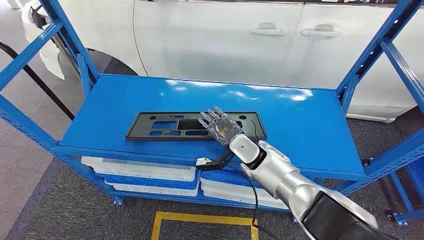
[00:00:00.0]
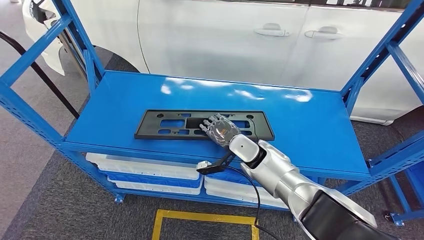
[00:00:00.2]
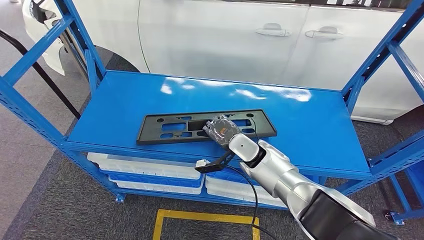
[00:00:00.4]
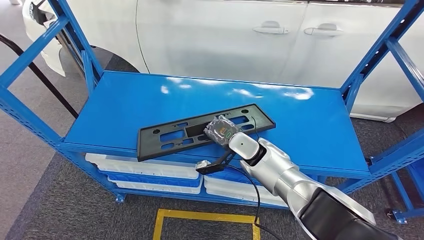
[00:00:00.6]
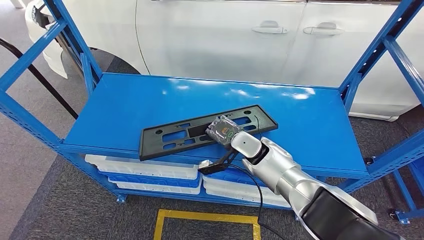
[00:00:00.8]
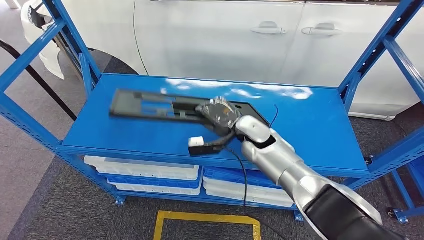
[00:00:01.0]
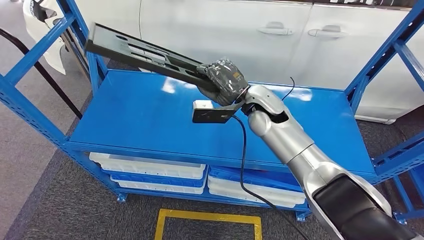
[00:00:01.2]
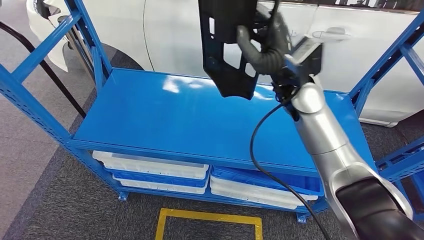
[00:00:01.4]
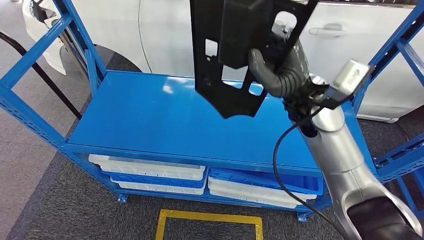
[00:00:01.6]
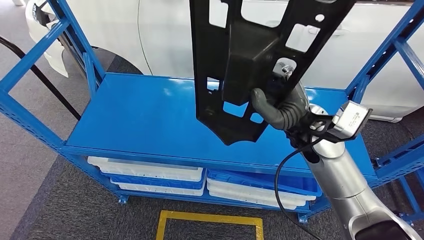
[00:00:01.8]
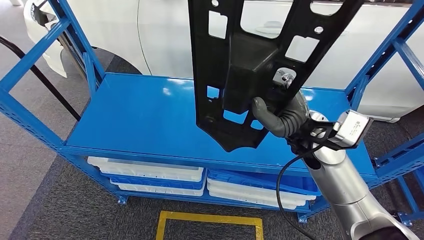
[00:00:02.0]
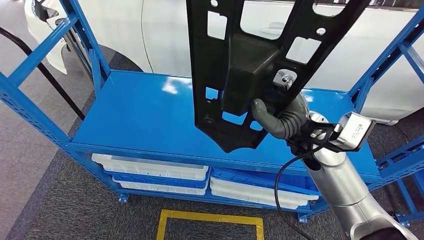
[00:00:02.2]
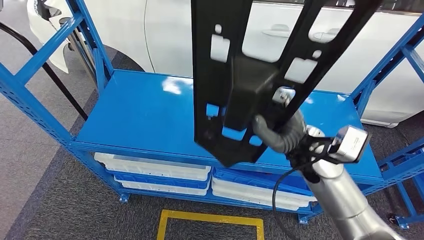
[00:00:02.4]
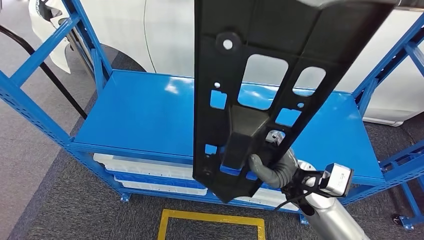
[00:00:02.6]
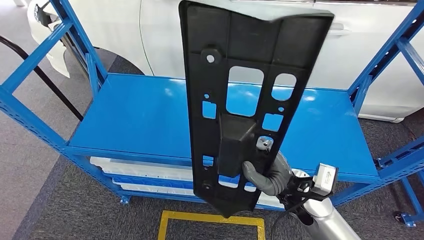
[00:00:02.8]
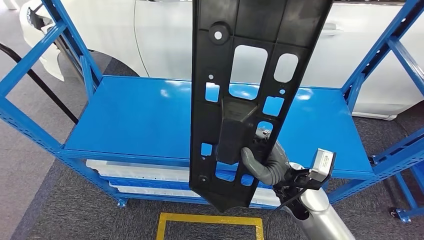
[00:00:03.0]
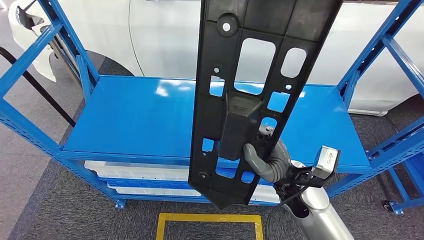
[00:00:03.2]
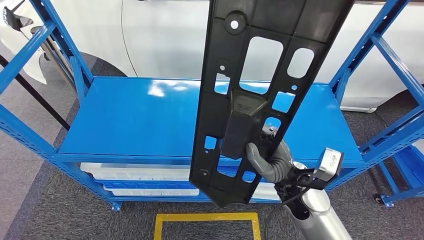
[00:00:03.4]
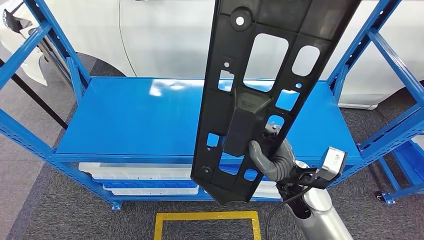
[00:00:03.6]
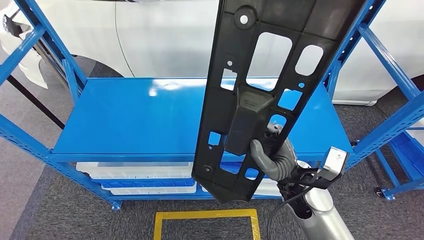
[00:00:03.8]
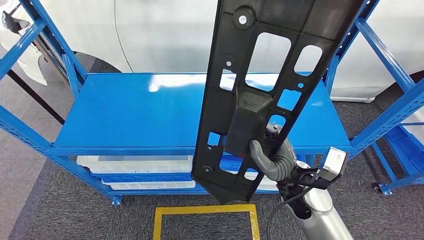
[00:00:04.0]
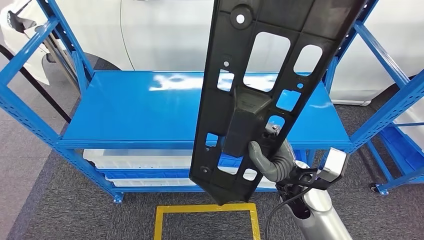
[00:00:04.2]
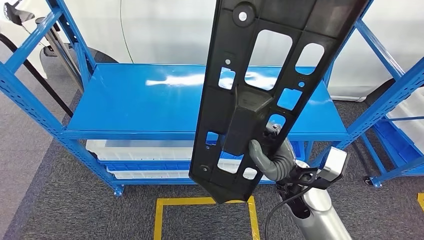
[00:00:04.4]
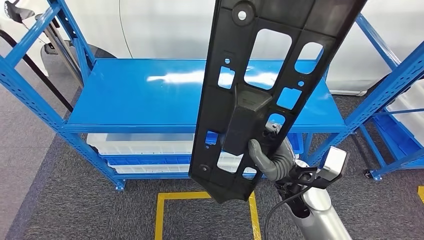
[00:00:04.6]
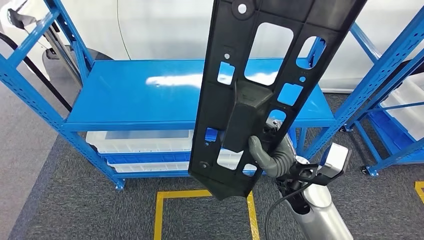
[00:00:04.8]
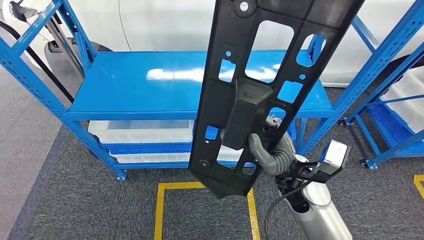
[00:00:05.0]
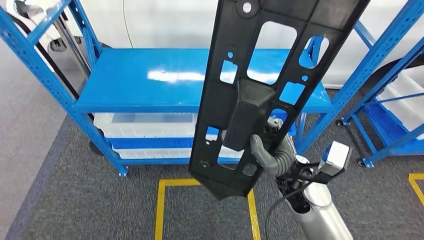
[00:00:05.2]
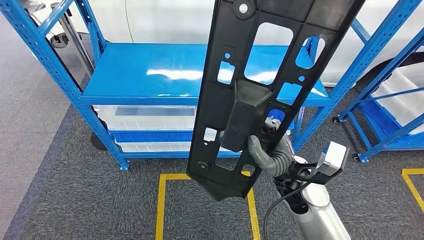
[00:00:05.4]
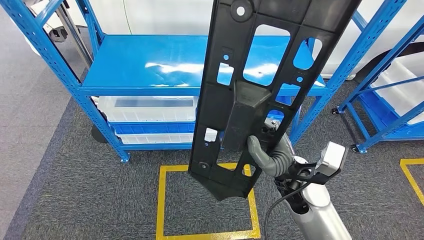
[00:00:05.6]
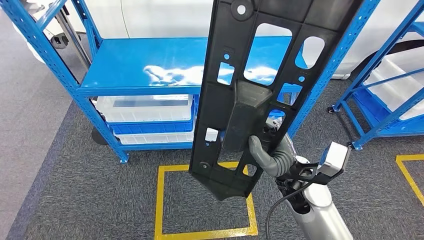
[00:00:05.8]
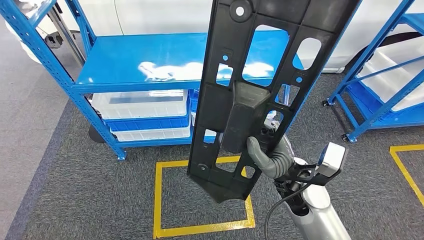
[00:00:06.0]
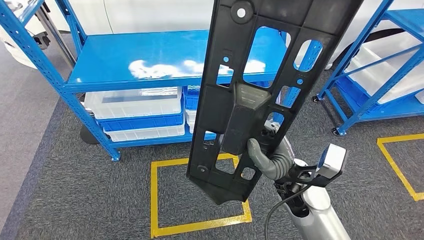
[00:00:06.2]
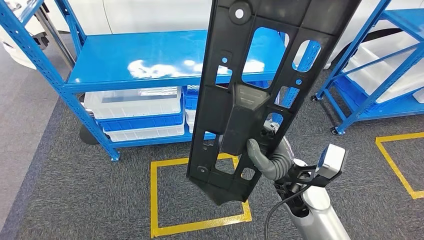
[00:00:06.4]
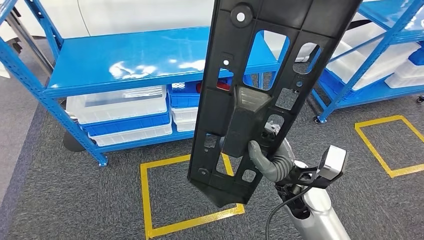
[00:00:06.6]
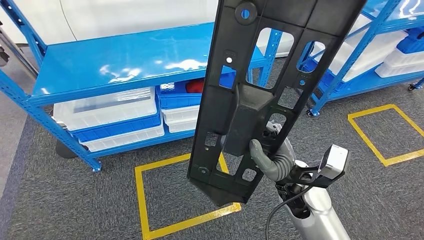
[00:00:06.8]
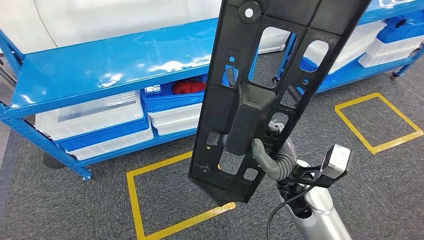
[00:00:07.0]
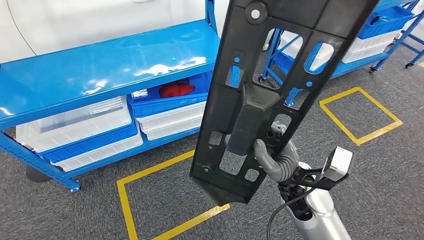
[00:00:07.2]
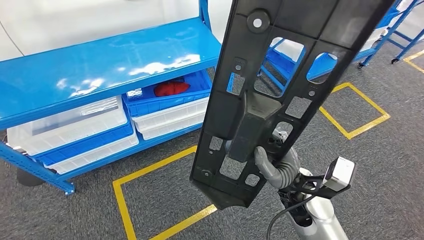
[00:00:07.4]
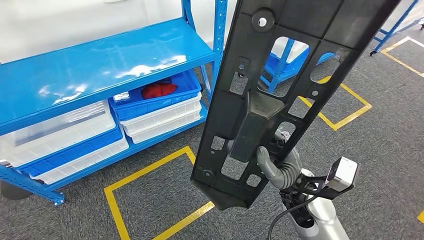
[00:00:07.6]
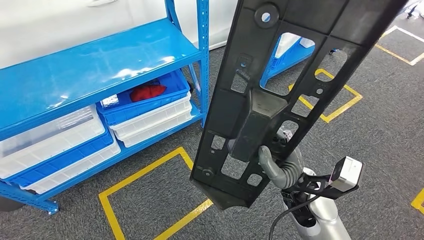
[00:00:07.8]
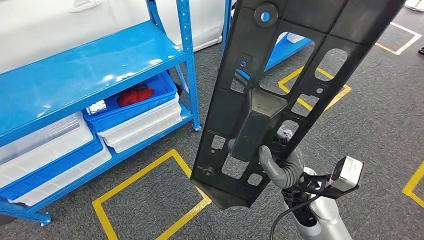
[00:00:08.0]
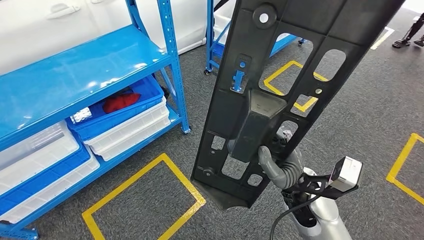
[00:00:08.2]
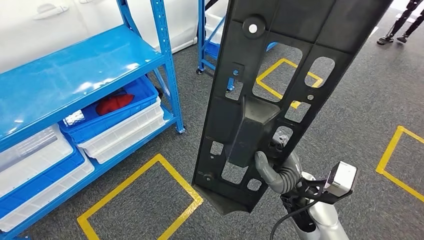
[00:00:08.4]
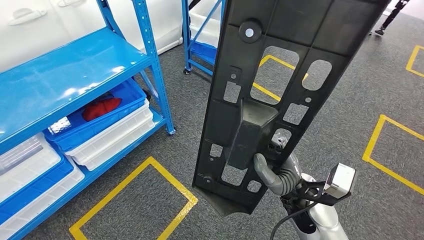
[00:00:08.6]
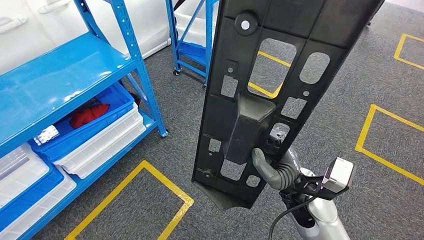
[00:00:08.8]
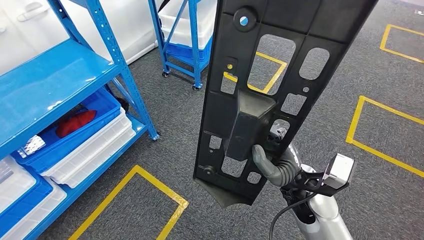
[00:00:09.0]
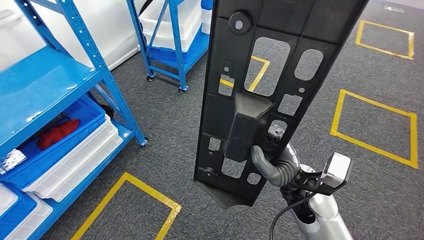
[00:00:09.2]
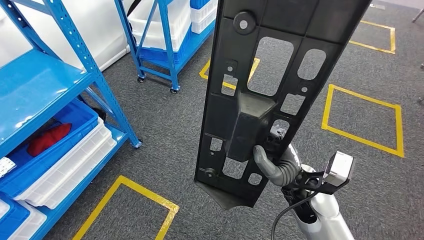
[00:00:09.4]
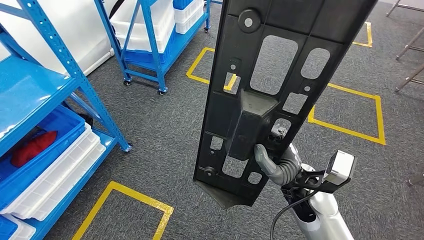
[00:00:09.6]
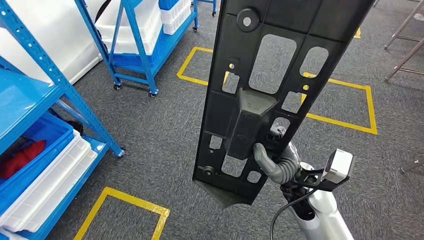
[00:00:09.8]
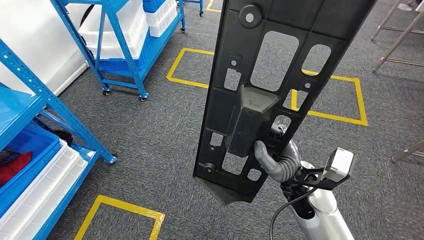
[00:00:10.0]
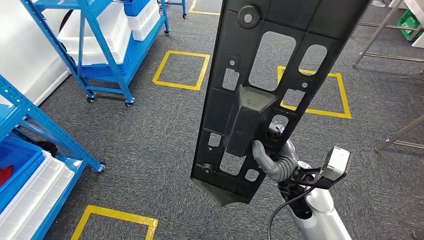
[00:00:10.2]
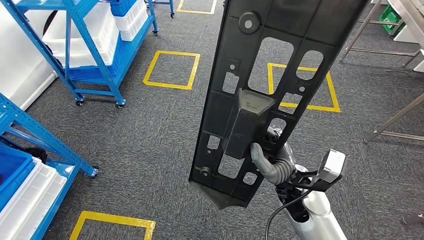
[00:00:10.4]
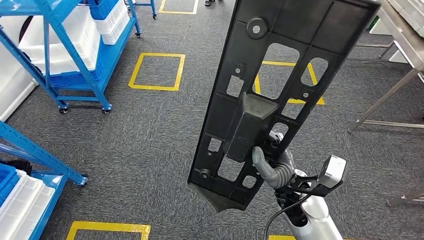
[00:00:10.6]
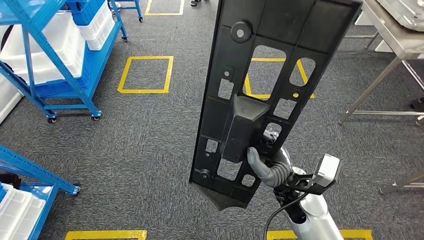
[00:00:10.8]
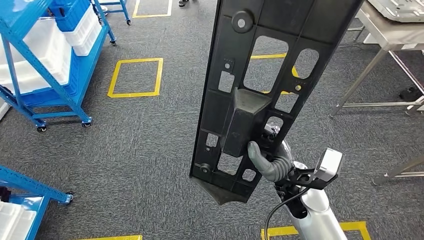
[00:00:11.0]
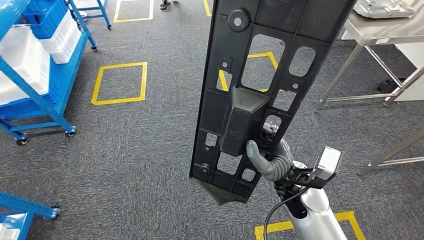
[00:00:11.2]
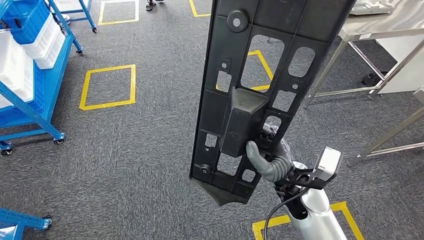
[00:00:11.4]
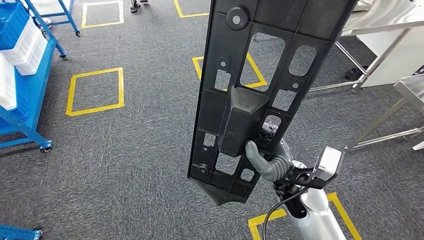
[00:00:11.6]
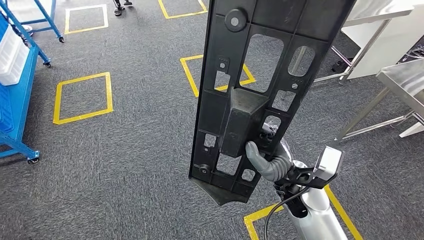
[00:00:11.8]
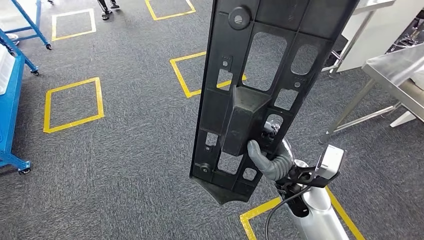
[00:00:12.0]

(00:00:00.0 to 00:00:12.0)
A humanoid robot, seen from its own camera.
Step, 00:00:00.0 - 00:00:02.6: Pick up the large material from the shelf.

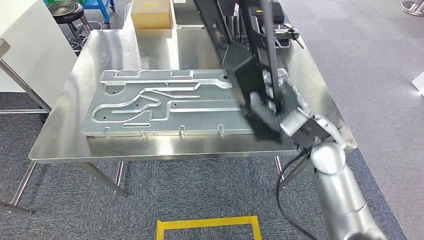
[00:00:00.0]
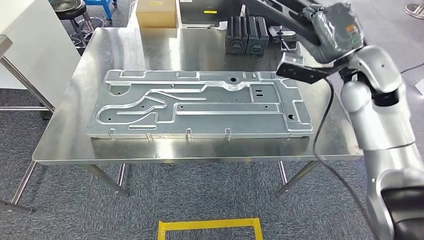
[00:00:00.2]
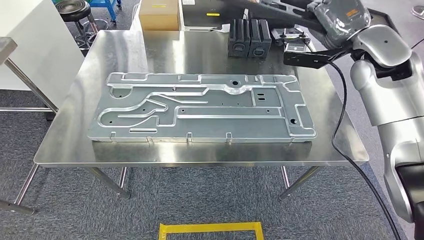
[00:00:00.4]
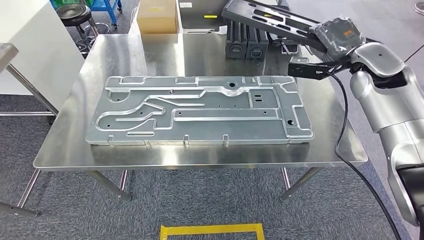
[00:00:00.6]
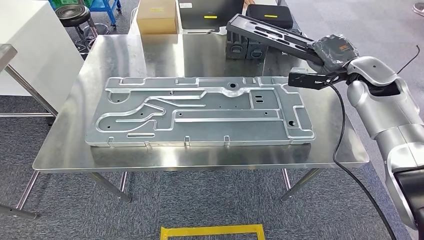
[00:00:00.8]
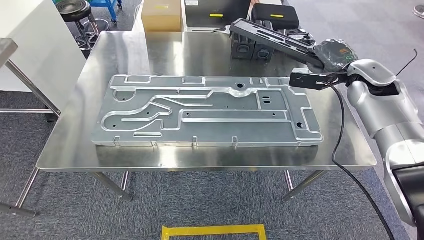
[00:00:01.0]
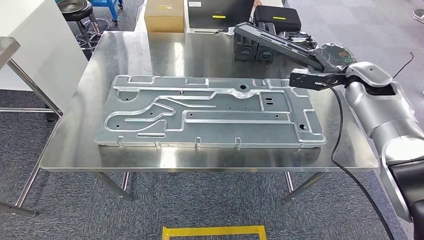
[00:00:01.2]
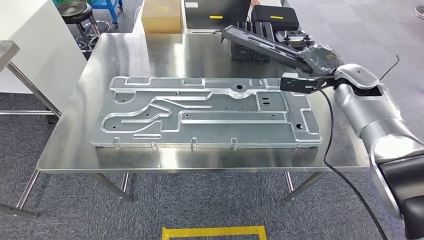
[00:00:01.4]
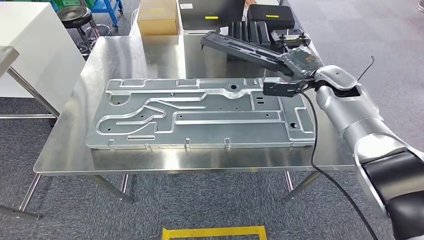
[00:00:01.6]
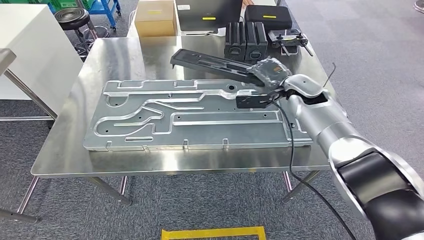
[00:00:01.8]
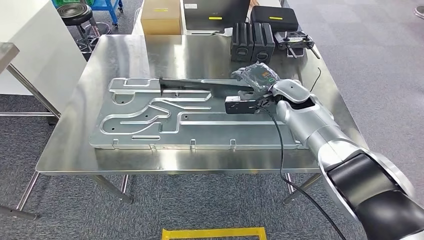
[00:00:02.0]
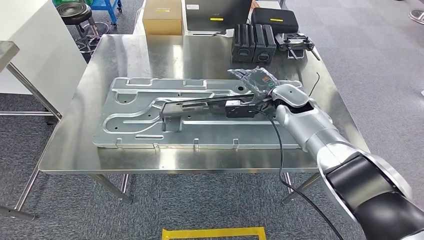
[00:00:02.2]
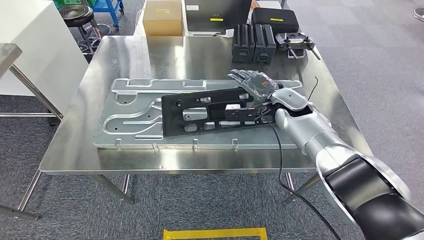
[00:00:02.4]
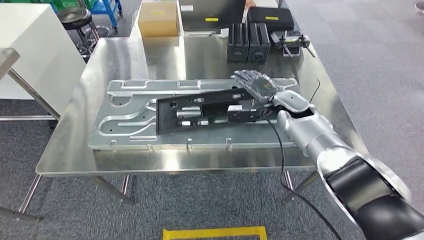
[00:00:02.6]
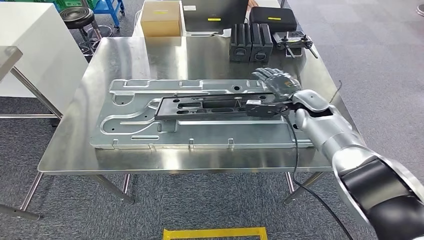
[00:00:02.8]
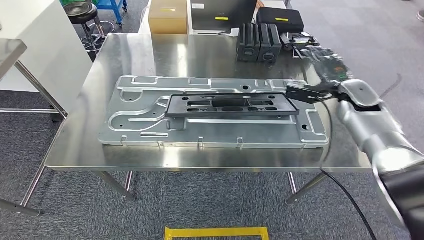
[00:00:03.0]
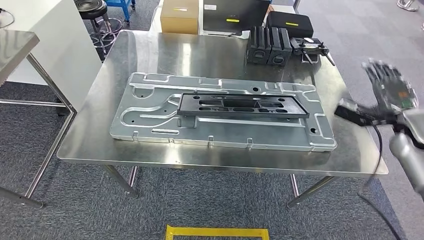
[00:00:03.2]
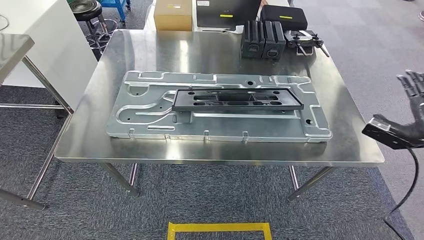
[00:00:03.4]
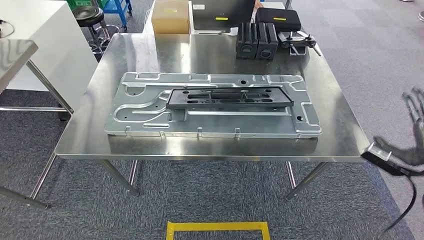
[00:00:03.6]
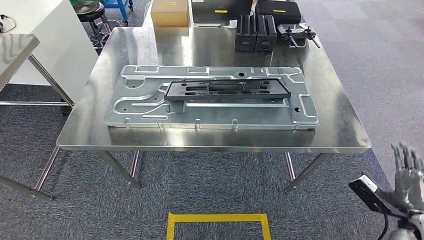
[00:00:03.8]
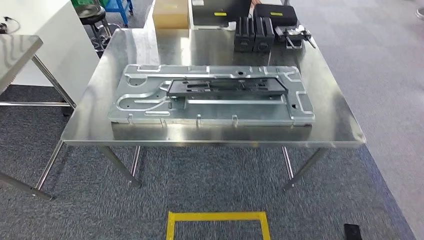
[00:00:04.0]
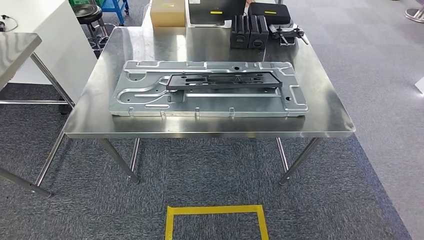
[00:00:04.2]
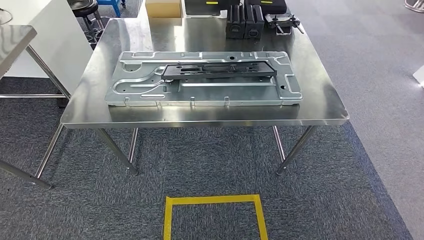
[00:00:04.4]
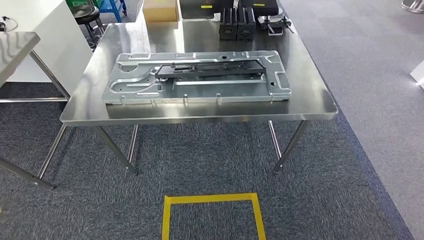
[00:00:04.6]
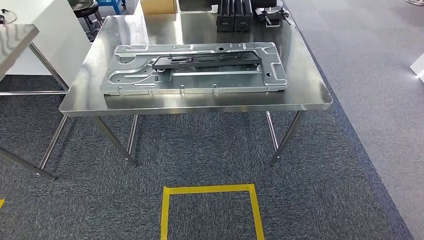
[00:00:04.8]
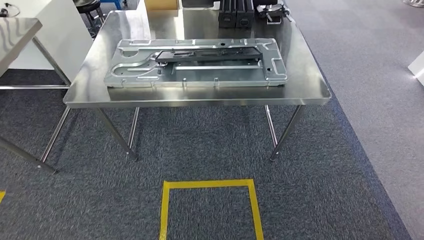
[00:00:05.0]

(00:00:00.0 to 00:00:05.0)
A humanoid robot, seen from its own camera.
Step, 00:00:02.0 - 00:00:03.8: Insert the large material into the corresponding hole on the workbench.
